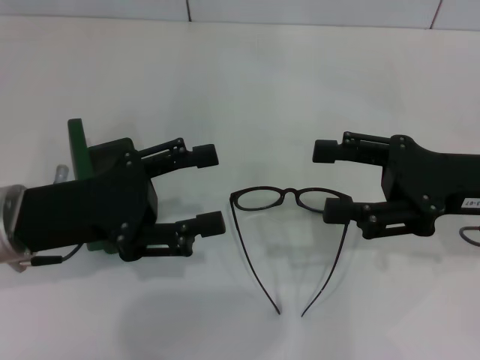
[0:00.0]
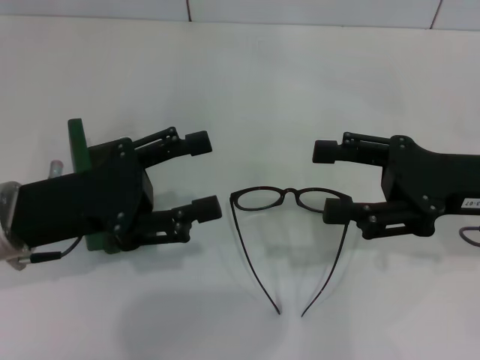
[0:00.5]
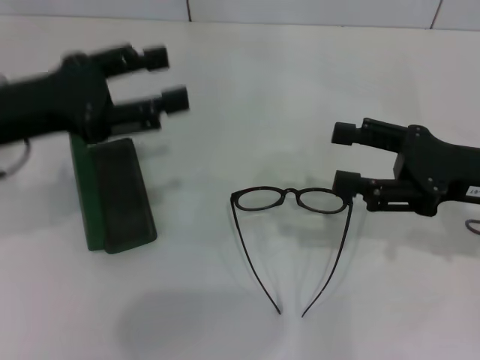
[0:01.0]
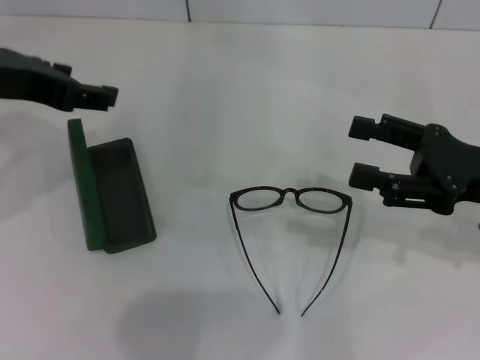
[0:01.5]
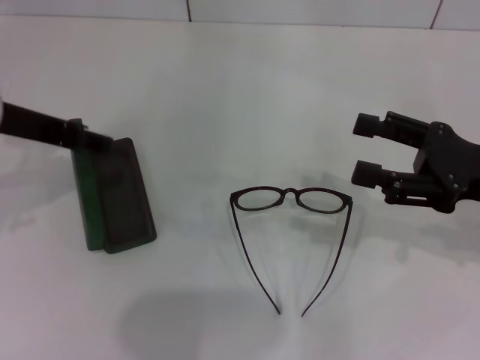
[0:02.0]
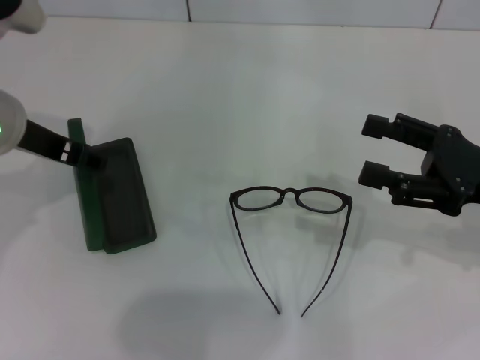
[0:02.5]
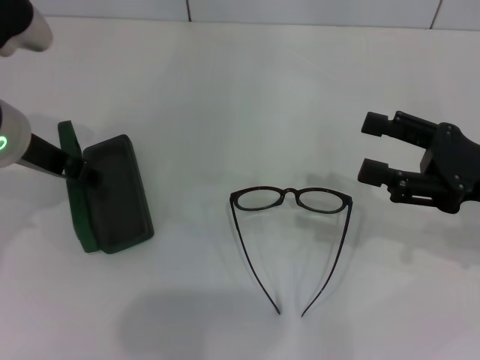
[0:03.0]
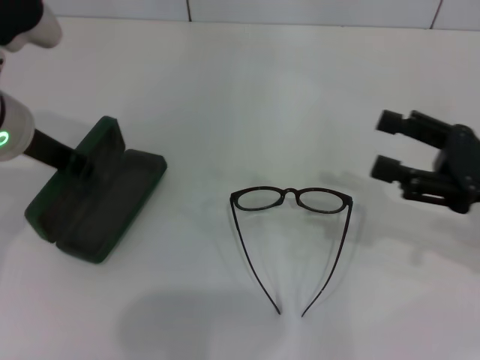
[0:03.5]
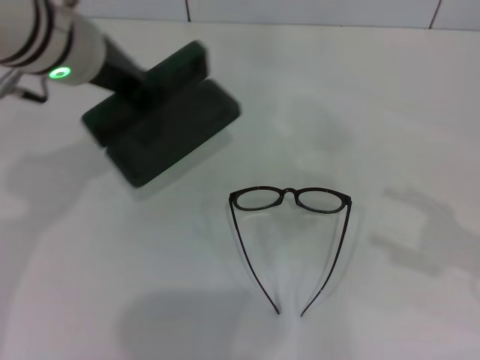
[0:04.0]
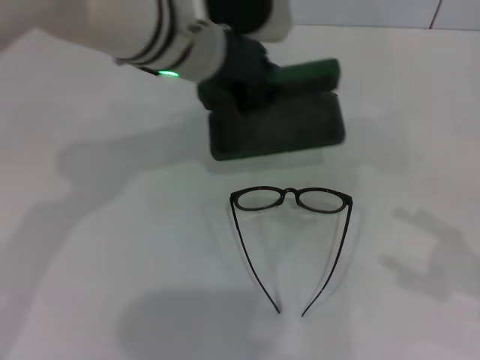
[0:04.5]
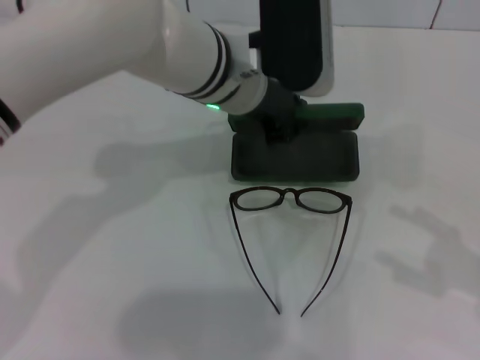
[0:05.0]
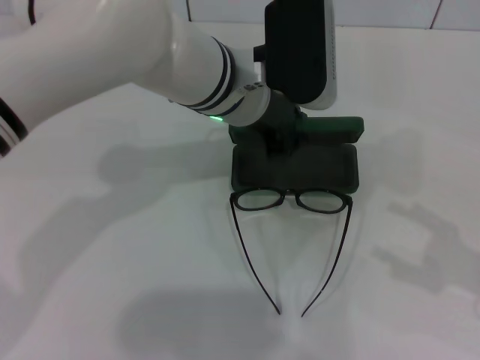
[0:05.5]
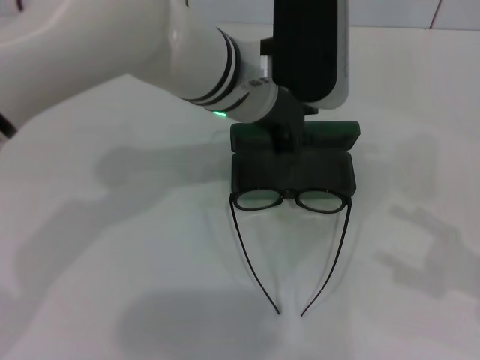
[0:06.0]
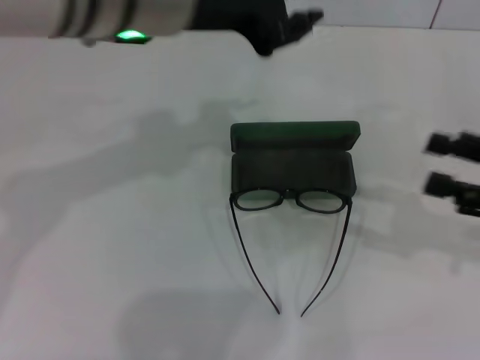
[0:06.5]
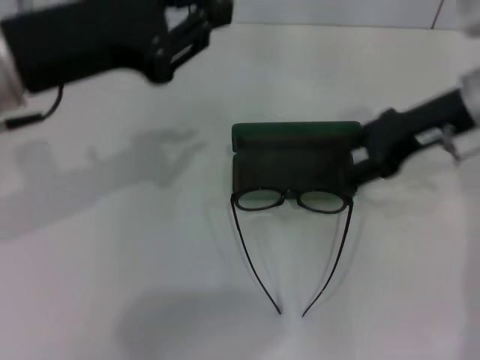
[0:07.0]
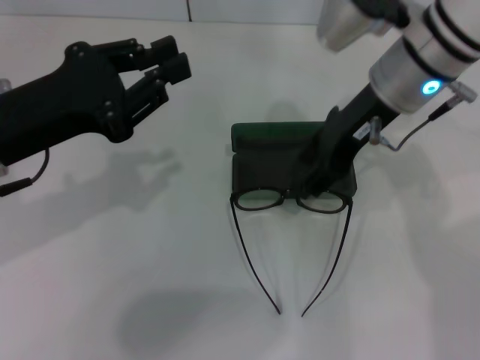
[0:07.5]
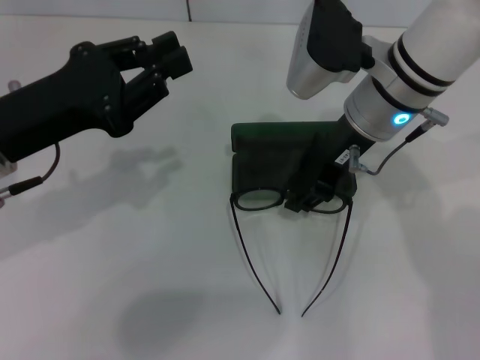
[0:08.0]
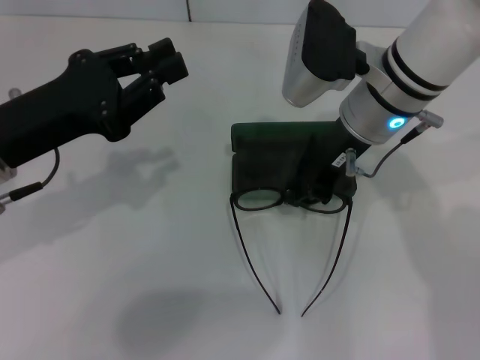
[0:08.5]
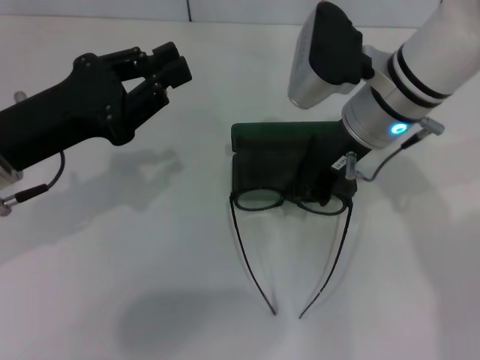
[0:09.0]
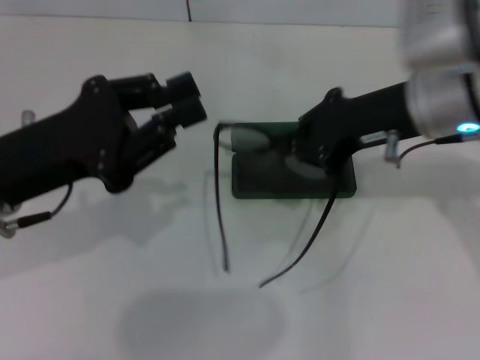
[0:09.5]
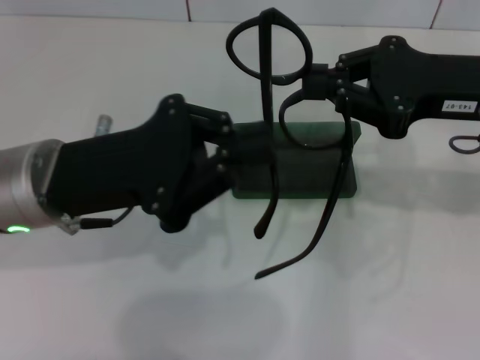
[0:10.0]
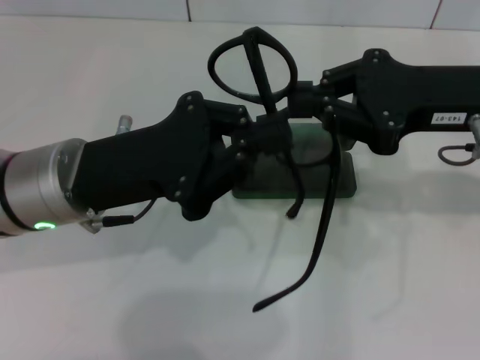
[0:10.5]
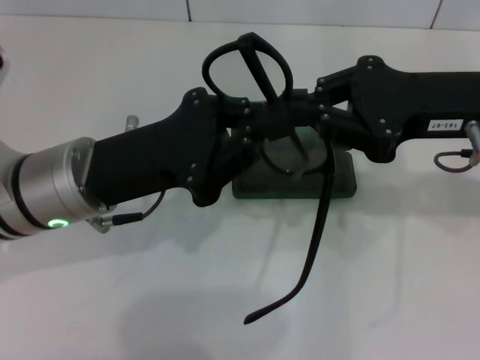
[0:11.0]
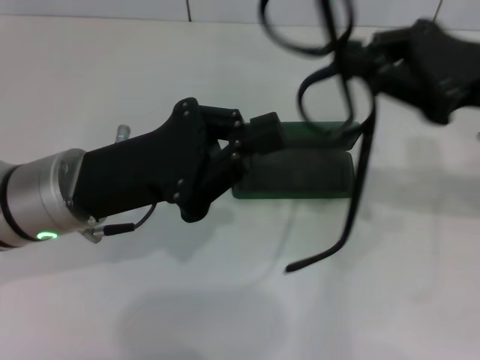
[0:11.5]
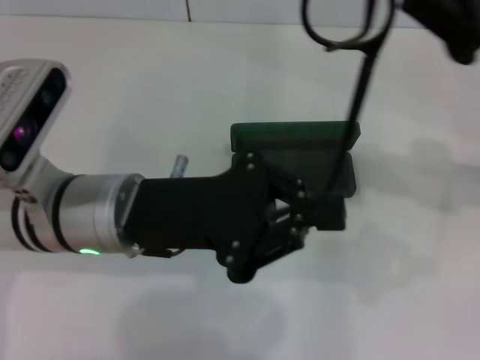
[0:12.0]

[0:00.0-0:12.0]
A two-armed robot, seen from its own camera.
Step, 0:00.0 to 0:02.5: Grab the glasses case with your left hand.
Step, 0:03.0 to 0:05.5: Place the glasses case in the center of the table with your left hand.
Step, 0:06.5 to 0:08.5: Grab the eyeglass frame with your right hand.
0:00.0 to 0:02.0: The left gripper travels upward and forward by roughly 10 cm.
0:02.0 to 0:04.0: The left gripper is displaced to the right by approximately 10 cm, and closes its fingers; the right gripper is displaced to the right and backward by about 10 cm.
0:04.0 to 0:06.0: The left gripper moves to the right, some 10 cm.
0:06.0 to 0:08.0: The left gripper goes some 25 cm to the left and backward. Meanwhile the right gripper goes approximately 30 cm to the left and forward, and closes its fingers.
0:08.0 to 0:10.0: The left gripper goes about 5 cm to the right. Meanwhile the right gripper goes about 15 cm to the right and backward, and closes.
0:10.0 to 0:12.0: The left gripper ends up about 5 cm from where it was.

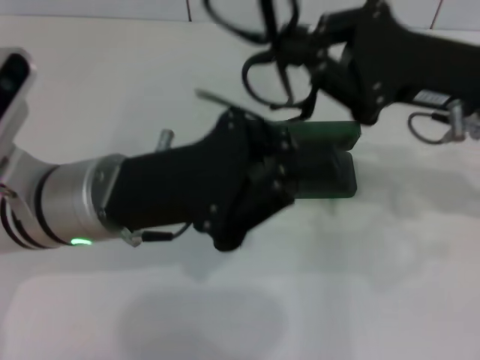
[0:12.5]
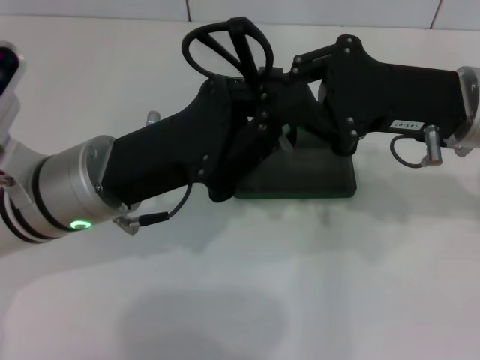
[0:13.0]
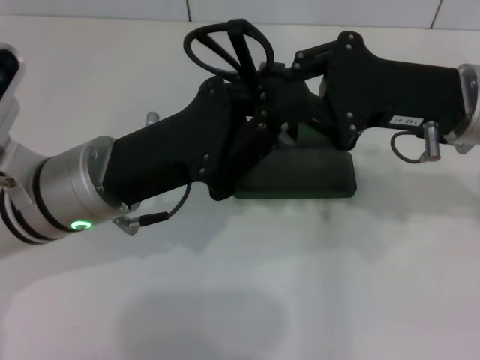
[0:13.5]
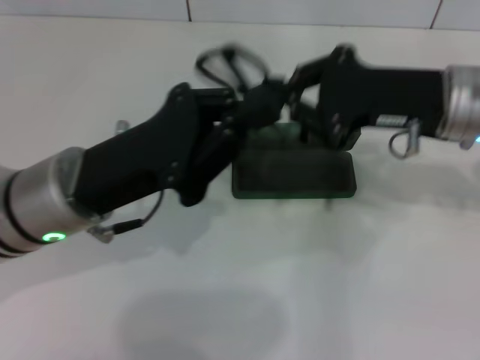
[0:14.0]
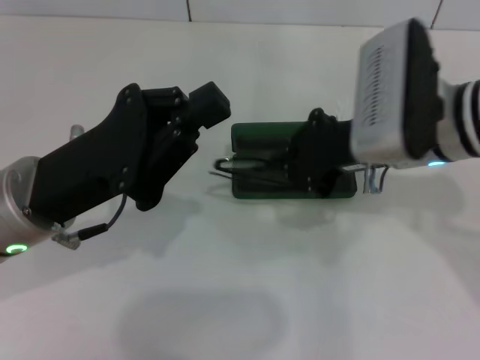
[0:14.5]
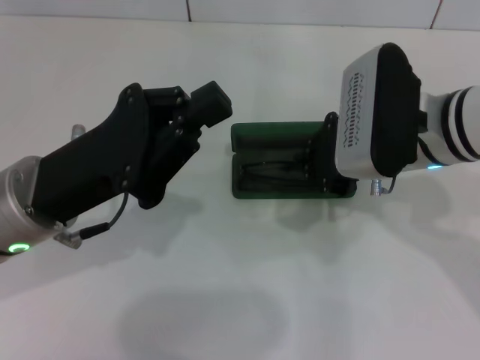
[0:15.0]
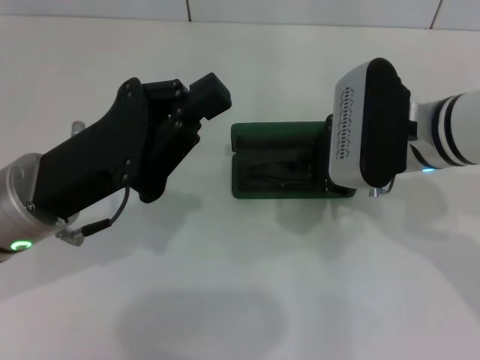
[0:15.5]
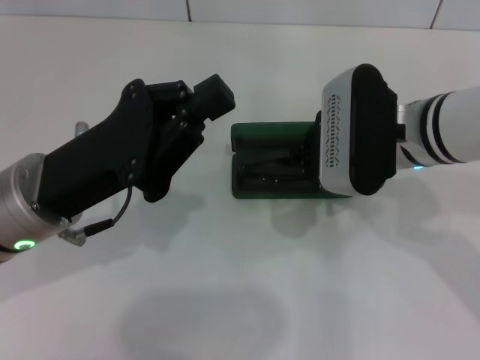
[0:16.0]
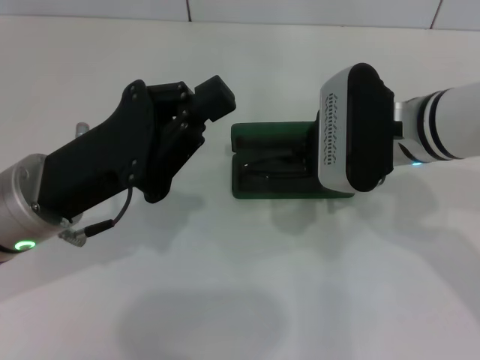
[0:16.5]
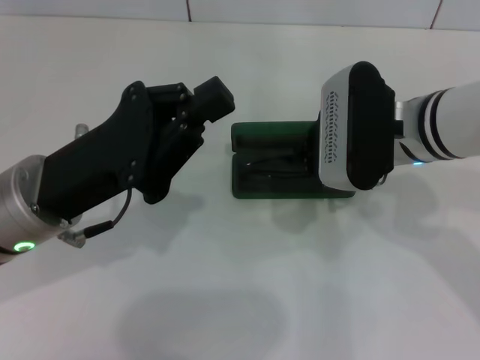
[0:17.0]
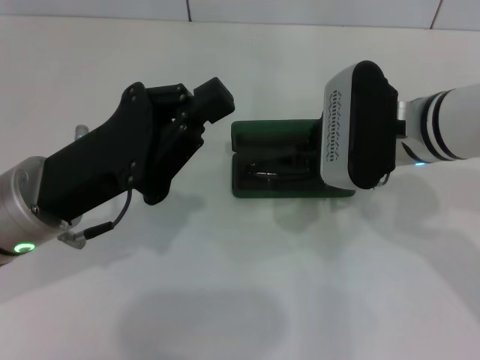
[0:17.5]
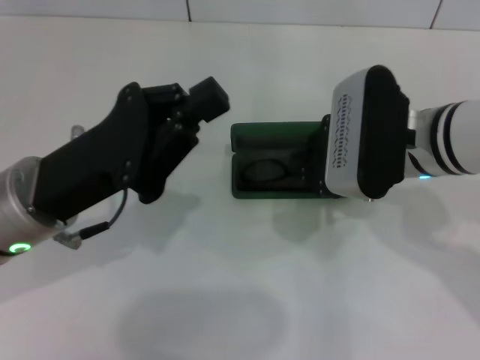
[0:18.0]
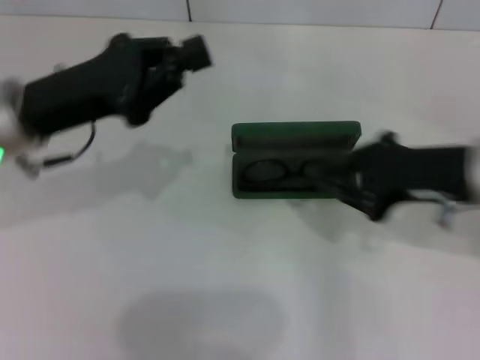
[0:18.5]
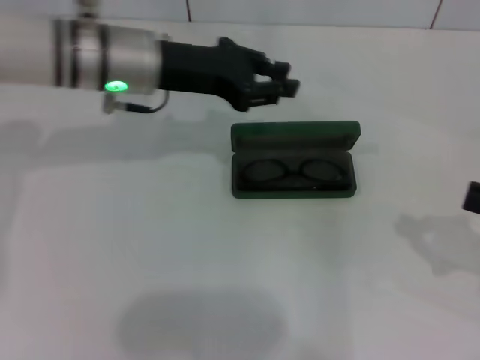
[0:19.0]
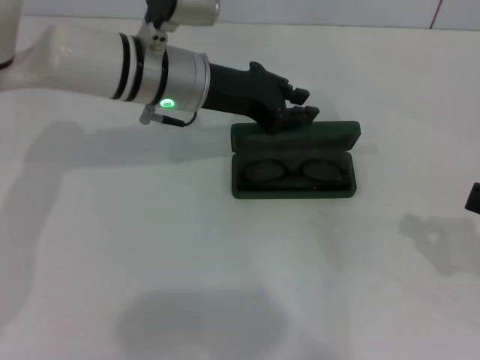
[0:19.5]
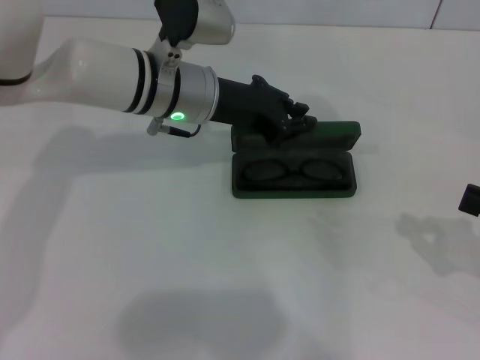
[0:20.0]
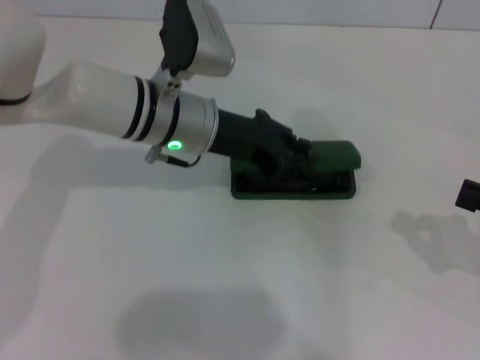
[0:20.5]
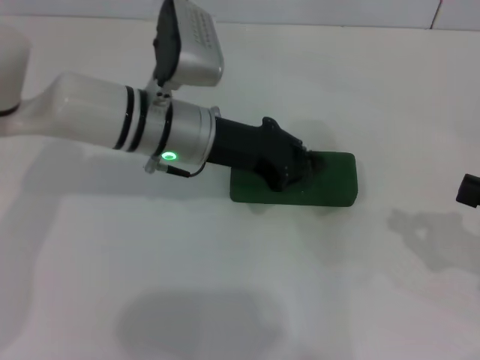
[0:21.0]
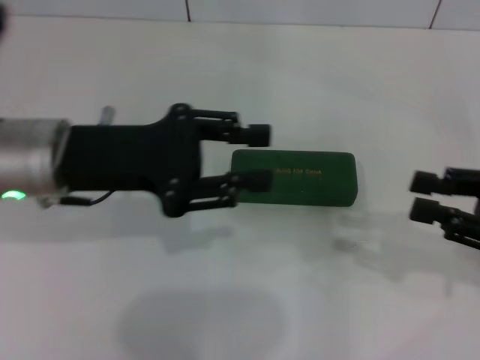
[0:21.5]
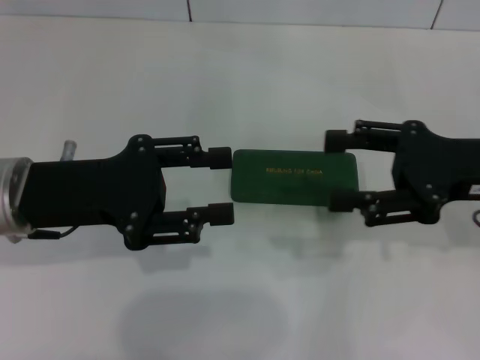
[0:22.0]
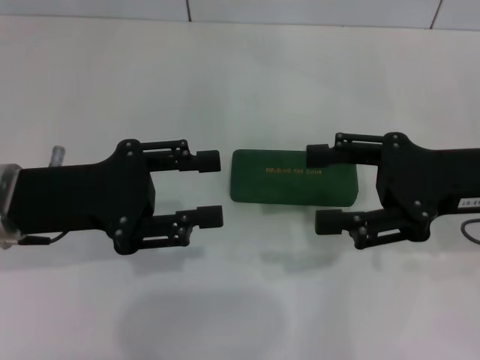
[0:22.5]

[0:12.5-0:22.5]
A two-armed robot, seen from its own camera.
Step, 0:13.5 to 0:18.0: Put the glasses into the case with your right hand.
Step, 0:18.5 to 0:20.5: Close the glasses case with your left hand.
0:12.5 to 0:14.5: The grippers both shift to the left by roughly 5 cm.
0:14.5 to 0:16.5: There are only small adjustments of the grippers.
0:16.5 to 0:18.5: The left gripper is displaced forward by roughly 5 cm. The right gripper shifts approximately 10 cm to the right and backward.
0:18.5 to 0:20.5: The left gripper is displaced to the right and forward by about 15 cm; the right gripper shifts about 15 cm to the right, backward and downward.
0:20.5 to 0:22.5: The left gripper heads to the left and backward, covering roughly 20 cm, and opens. Meanwhile the right gripper moves to the left, forward and upward, roughly 15 cm, and opens its fingers.
